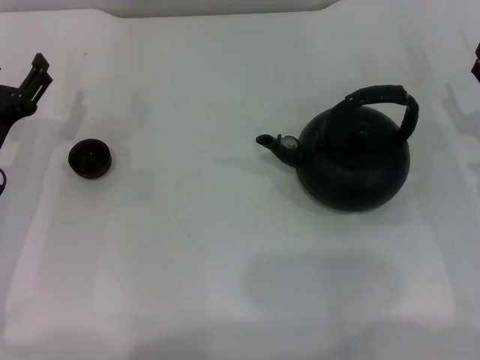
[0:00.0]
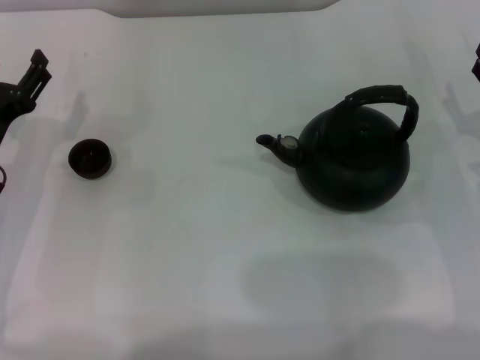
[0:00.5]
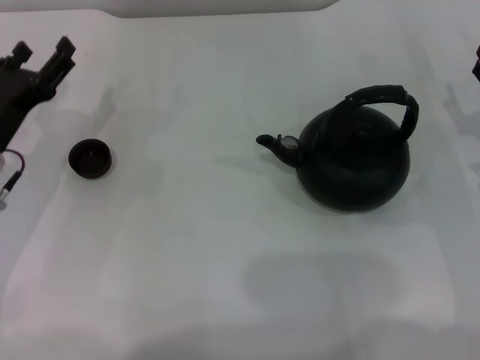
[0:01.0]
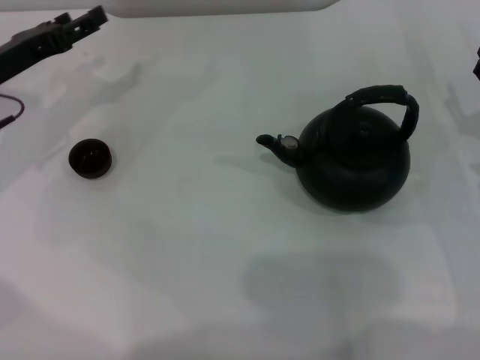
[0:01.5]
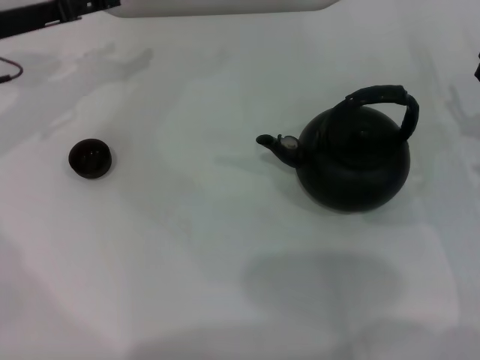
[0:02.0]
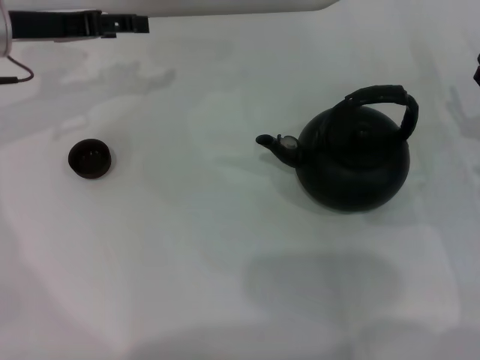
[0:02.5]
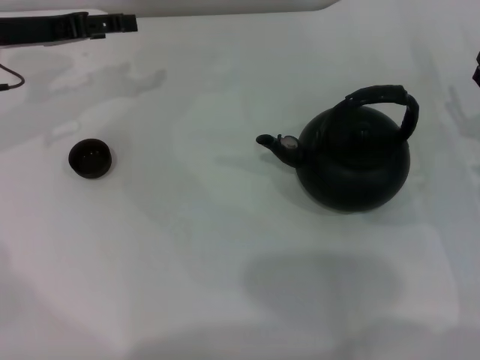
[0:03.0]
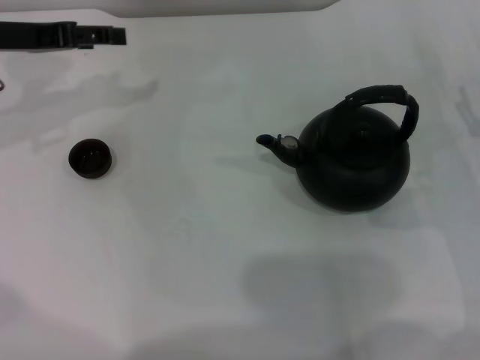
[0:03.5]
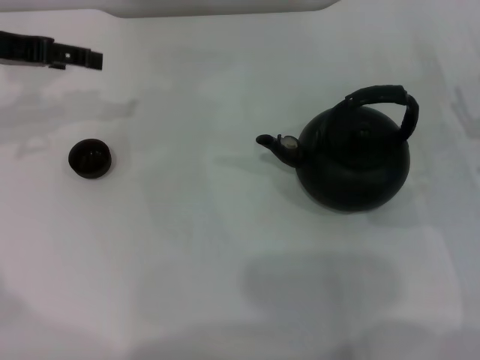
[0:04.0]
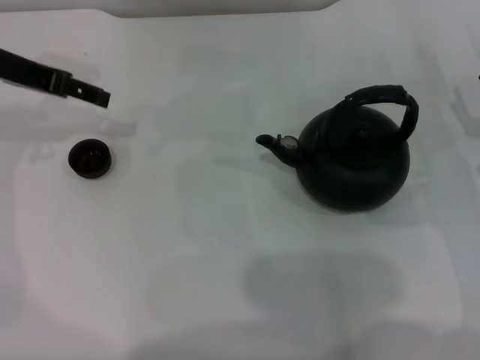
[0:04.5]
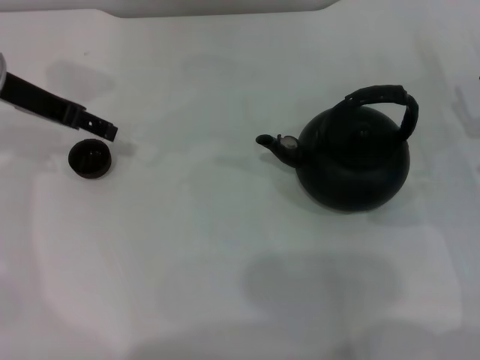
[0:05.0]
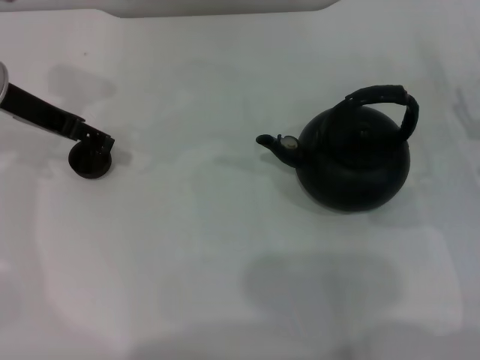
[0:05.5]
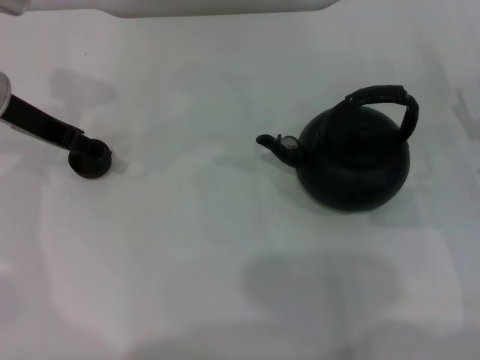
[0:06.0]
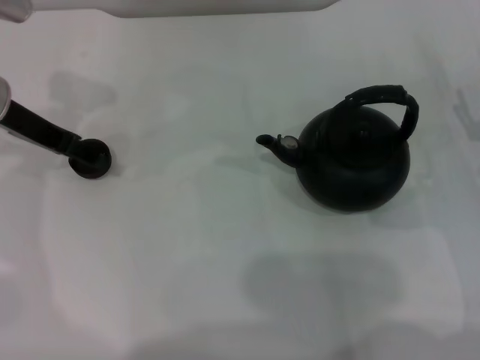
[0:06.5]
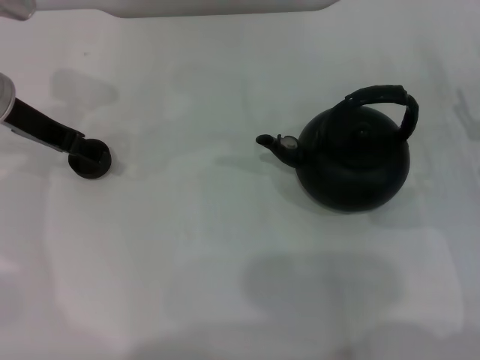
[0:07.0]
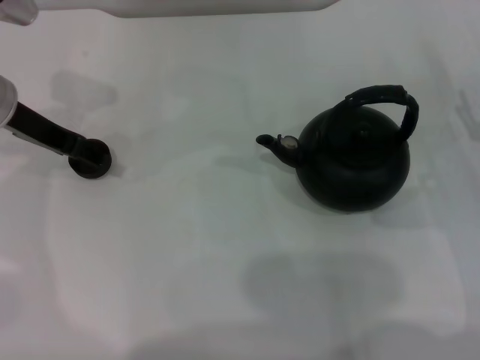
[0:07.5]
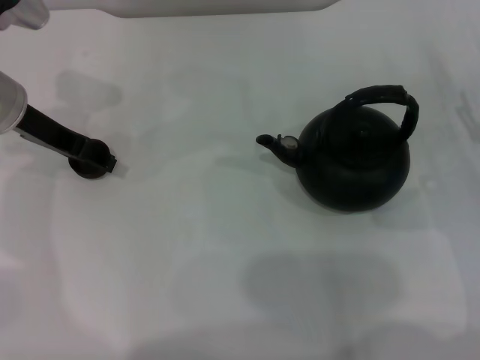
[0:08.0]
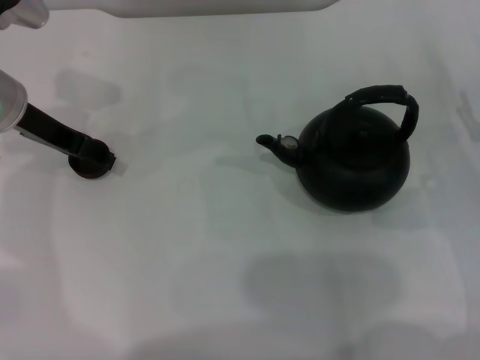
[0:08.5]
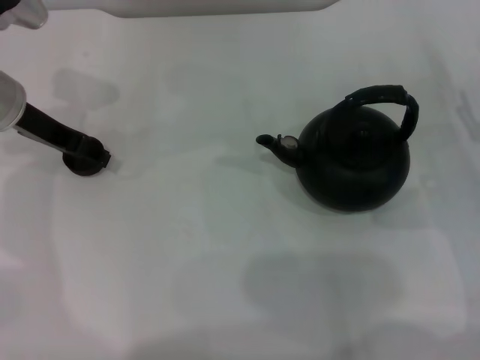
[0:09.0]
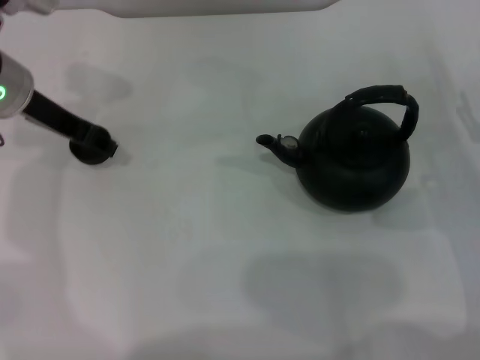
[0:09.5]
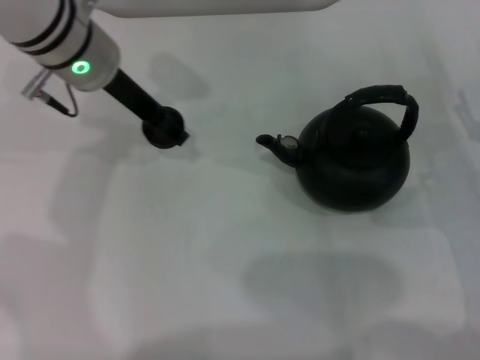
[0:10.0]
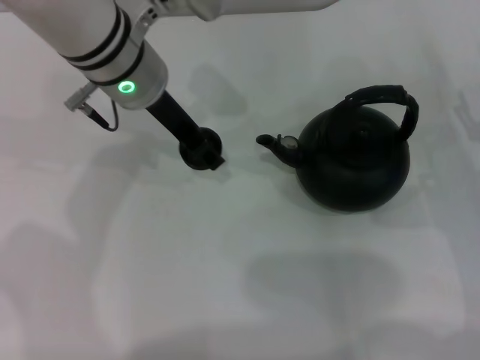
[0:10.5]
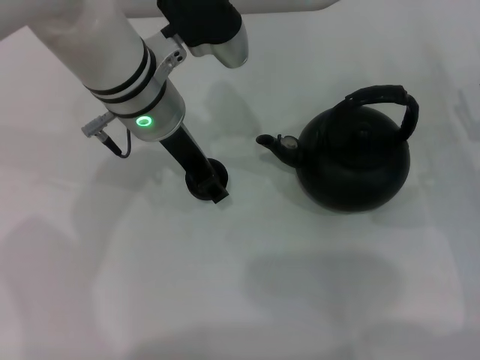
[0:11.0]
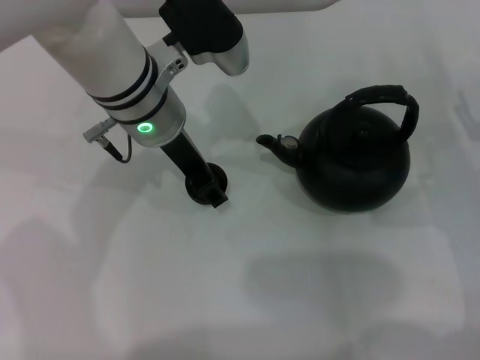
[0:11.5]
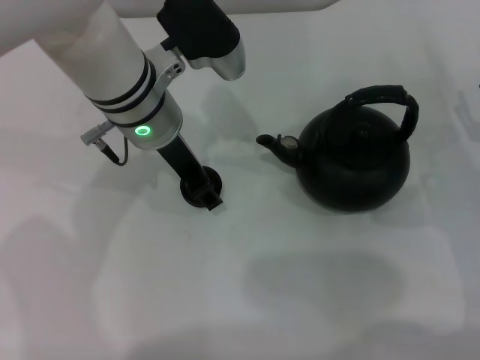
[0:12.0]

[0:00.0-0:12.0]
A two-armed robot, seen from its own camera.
Task of the whole recording: Grasp the handle of the teapot with one hand and pour tea into the teacup.
Step, 0:00.0 to 0:09.5: Pick up the teacup with the left gripper.
0:00.0 to 0:02.0: The left gripper travels forward and upward by some 15 cm.
0:02.0 to 0:04.0: The left gripper moves upward, about 5 cm.
0:04.0 to 0:06.0: The left gripper moves to the right, about 5 cm.
0:06.0 to 0:08.0: The grippers make only small movements.
0:08.0 to 0:10.0: The left gripper moves to the right, roughly 10 cm, and closes.
0:10.0 to 0:12.0: The left gripper heads to the right, covering roughly 5 cm.

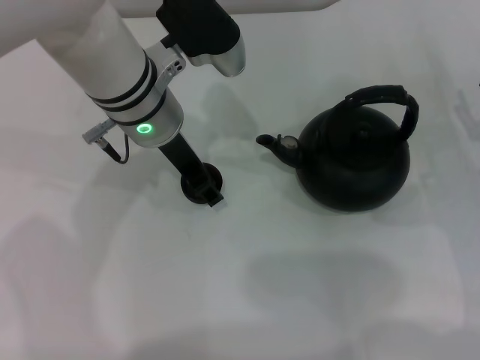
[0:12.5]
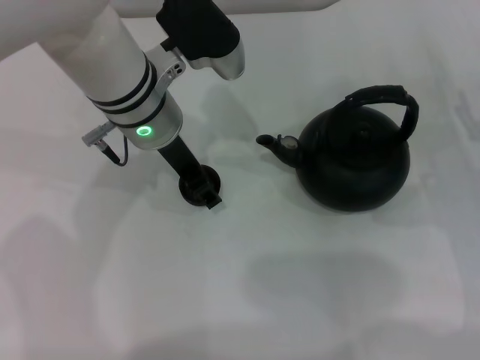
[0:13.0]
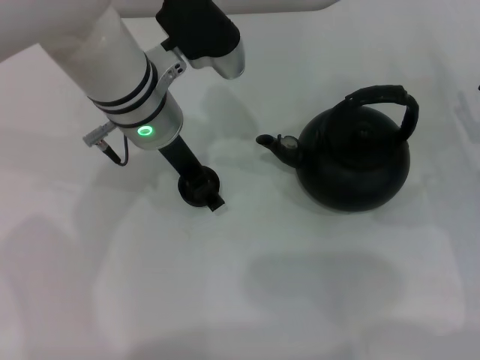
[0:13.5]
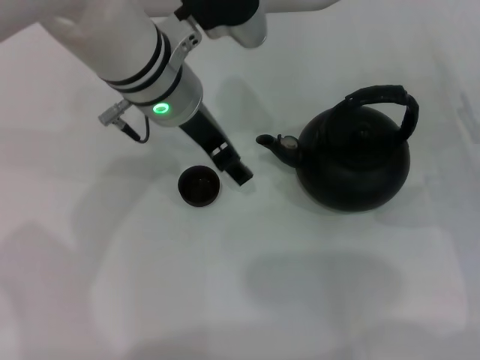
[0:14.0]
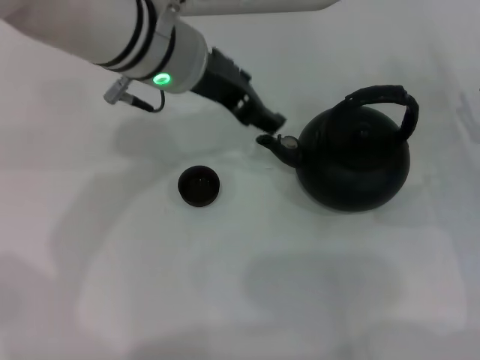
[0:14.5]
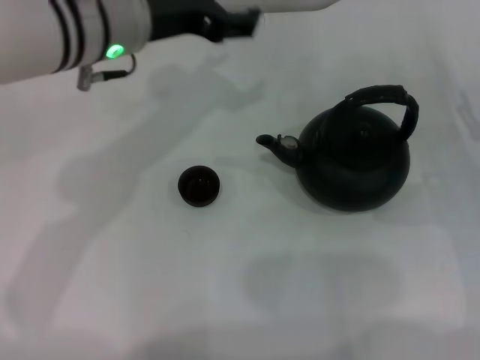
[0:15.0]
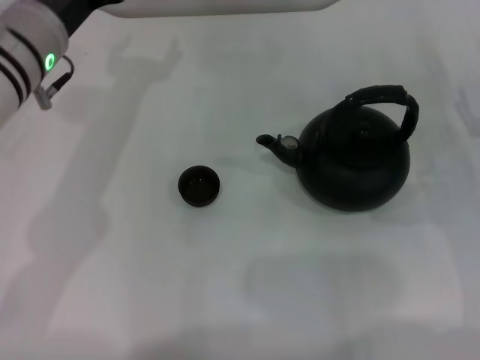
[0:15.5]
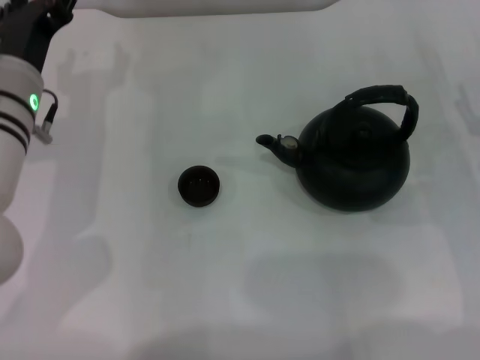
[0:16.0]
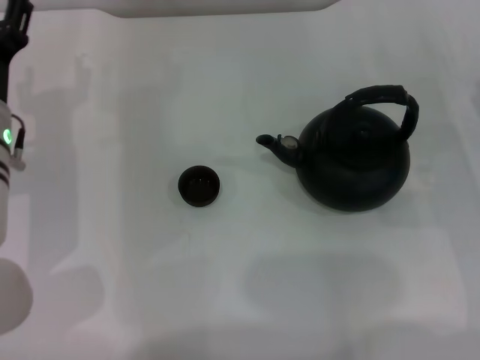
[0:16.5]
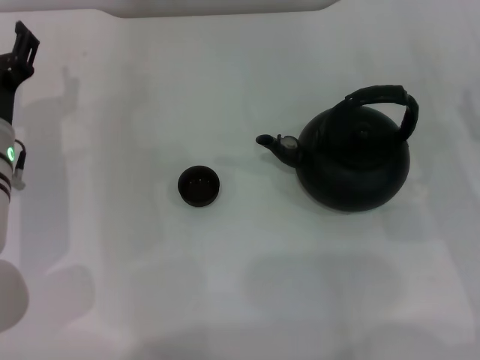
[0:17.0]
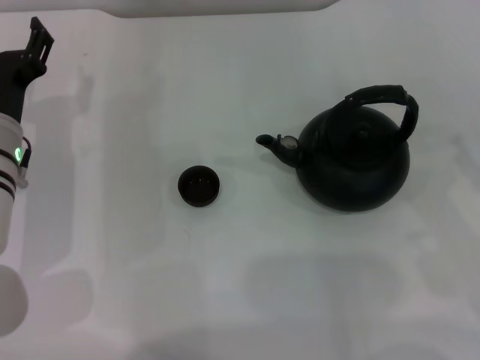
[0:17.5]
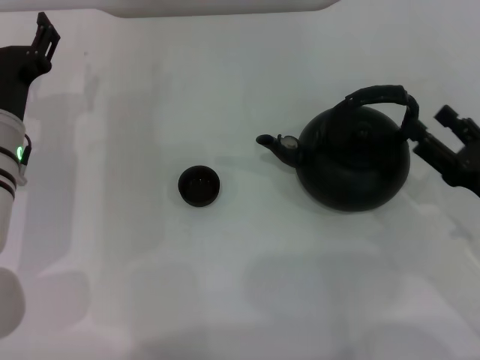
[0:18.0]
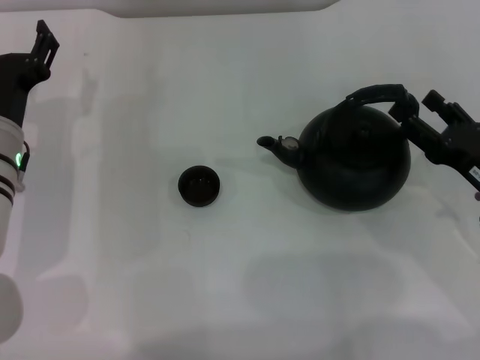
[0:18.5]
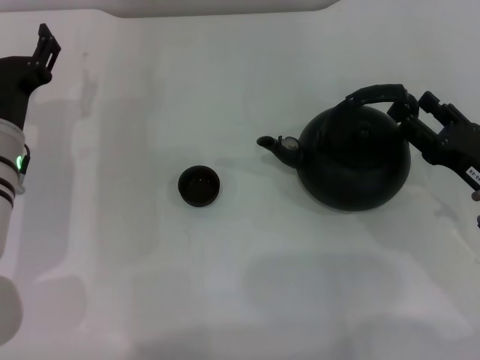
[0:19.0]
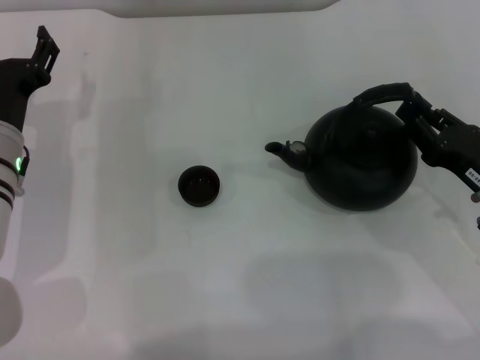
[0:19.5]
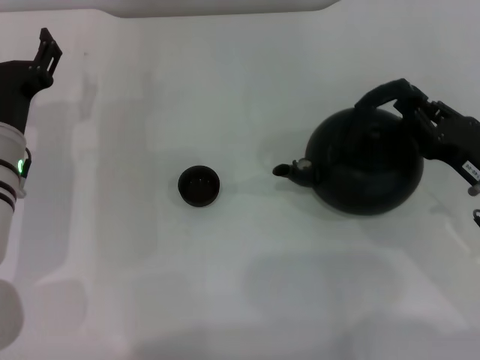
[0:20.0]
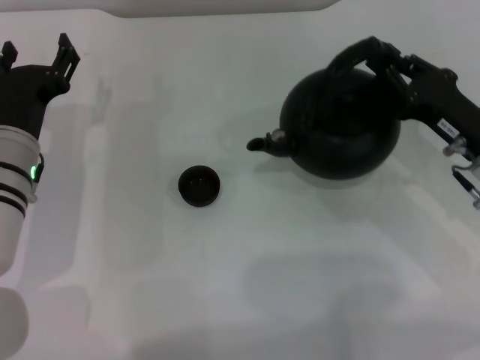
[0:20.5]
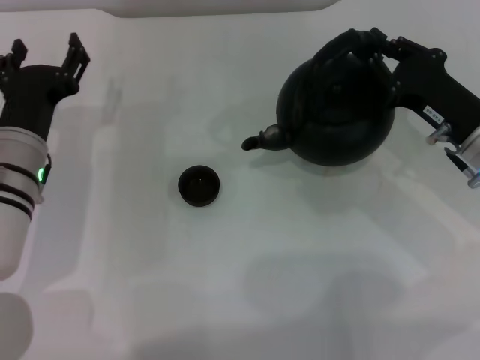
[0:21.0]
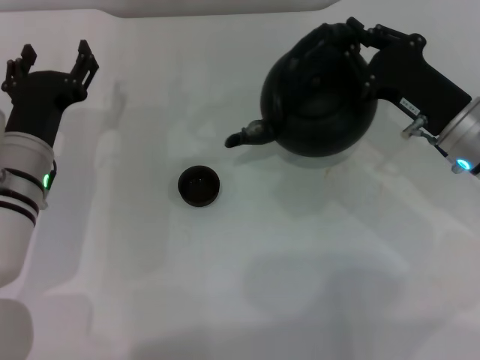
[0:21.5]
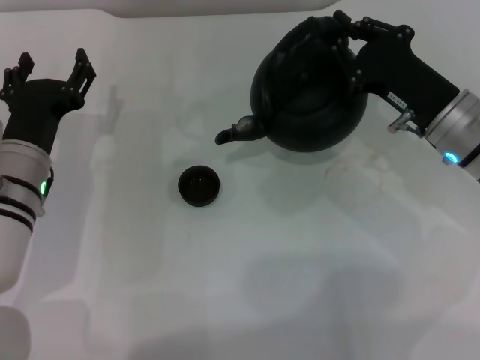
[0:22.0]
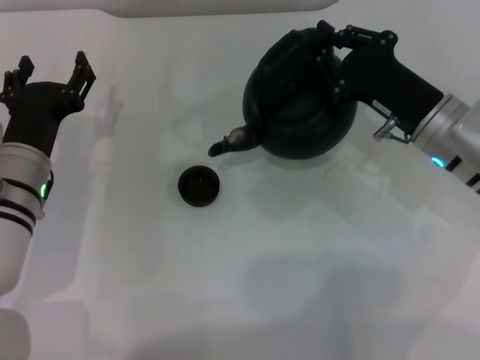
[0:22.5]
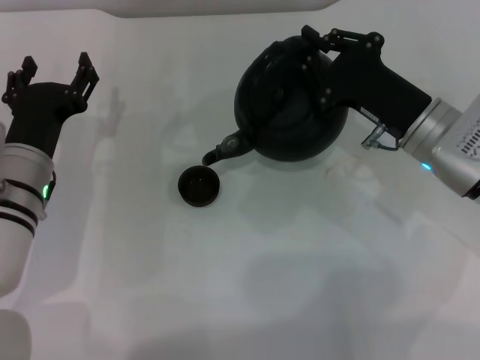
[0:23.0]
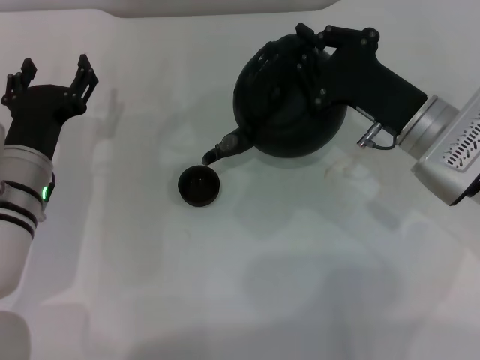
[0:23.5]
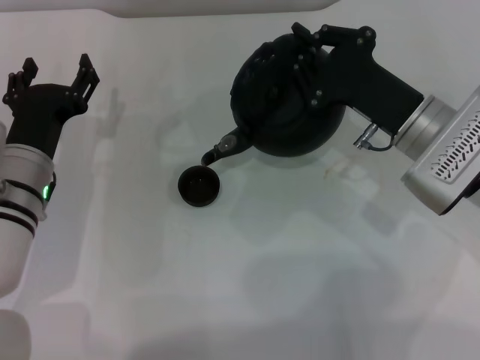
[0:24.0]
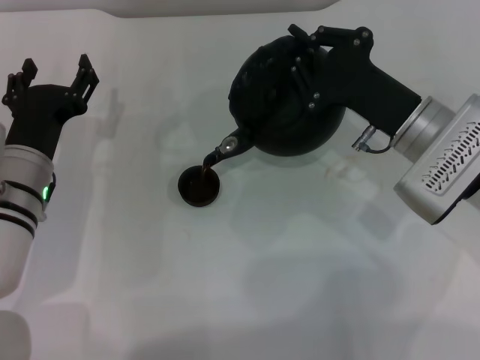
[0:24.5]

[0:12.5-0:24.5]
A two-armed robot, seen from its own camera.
Task of the whole recording: Grasp the handle of the teapot with one hand and pour tea into the teacup.
Step, 0:14.5 to 0:20.5: Pick up the teapot with the right gripper.
0:12.5 to 0:14.5: The left gripper moves upward, some 5 cm, and opens.
0:14.5 to 0:16.5: The left gripper moves to the left and downward, approximately 20 cm.
0:16.5 to 0:18.5: The right gripper shifts by about 5 cm.
0:18.5 to 0:20.5: The right gripper moves approximately 5 cm, and closes its fingers.
0:20.5 to 0:22.5: The right gripper goes approximately 5 cm to the left.

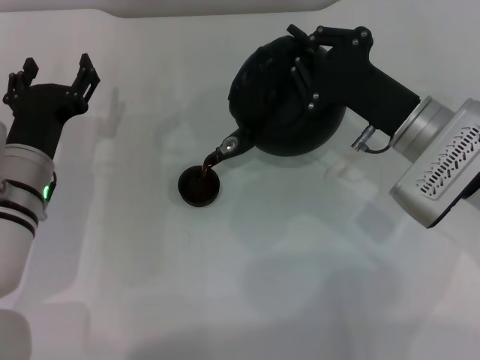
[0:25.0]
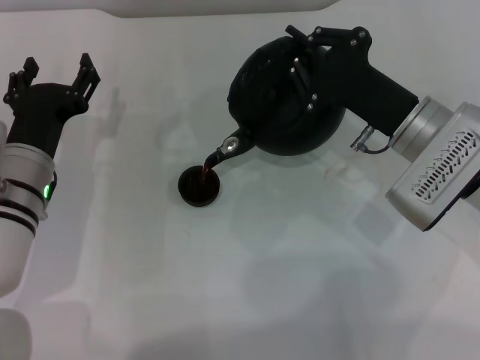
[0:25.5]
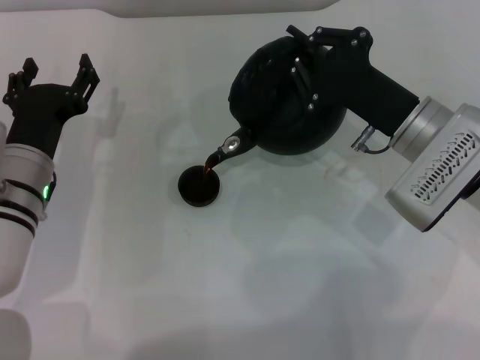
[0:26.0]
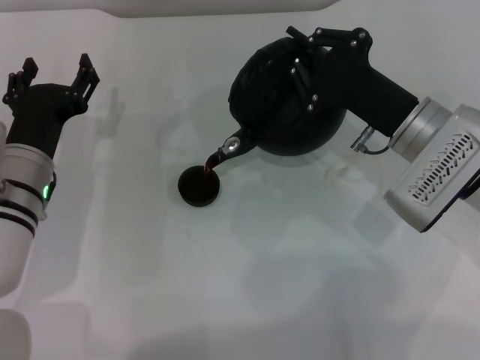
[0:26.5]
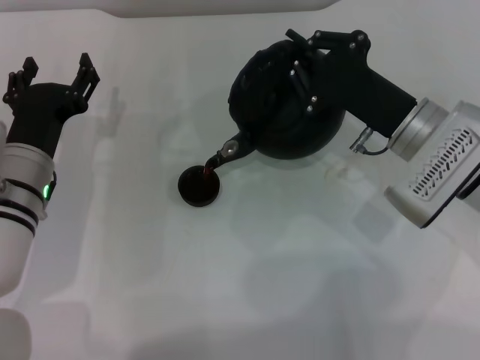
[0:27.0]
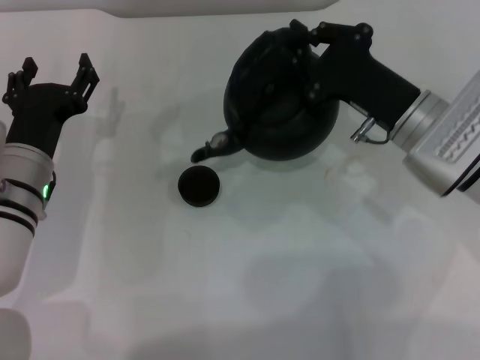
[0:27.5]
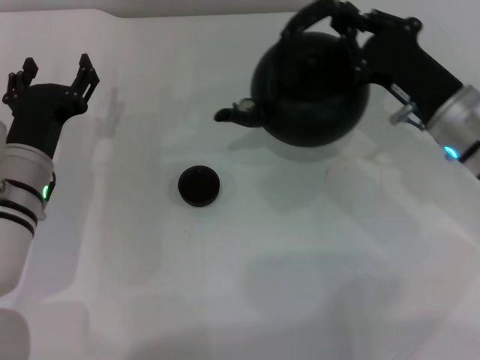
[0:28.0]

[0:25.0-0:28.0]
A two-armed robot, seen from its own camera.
Task of the whole recording: Grasp the handle of the teapot with one hand and pour tea into the teacup.
0:25.0 to 0:26.5: Neither gripper changes place.
